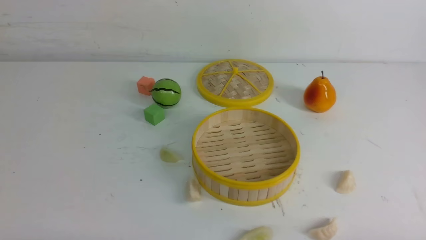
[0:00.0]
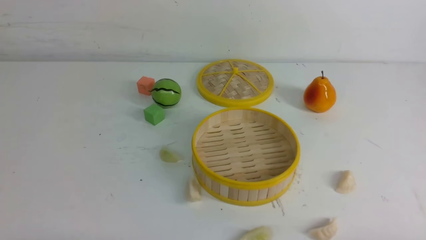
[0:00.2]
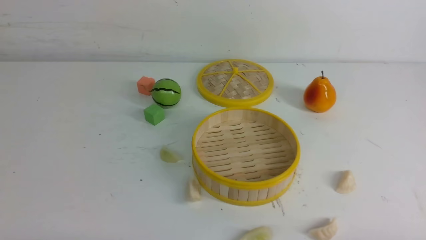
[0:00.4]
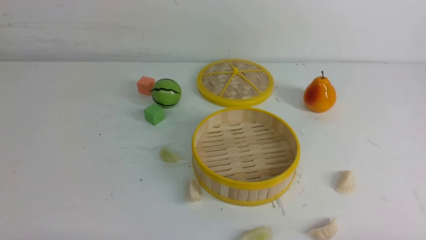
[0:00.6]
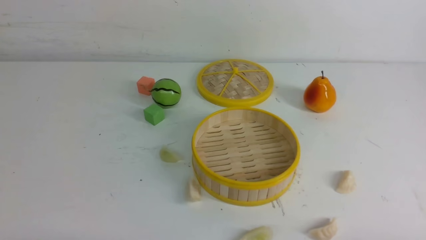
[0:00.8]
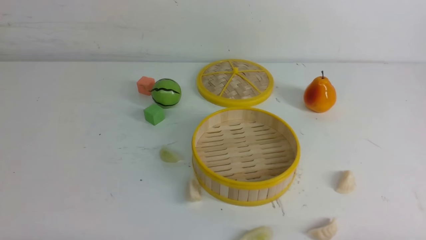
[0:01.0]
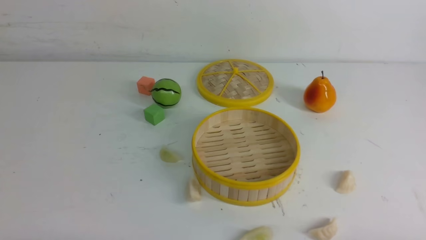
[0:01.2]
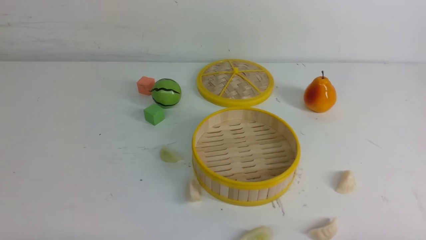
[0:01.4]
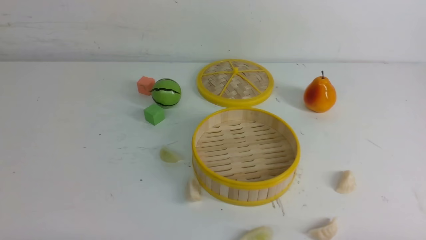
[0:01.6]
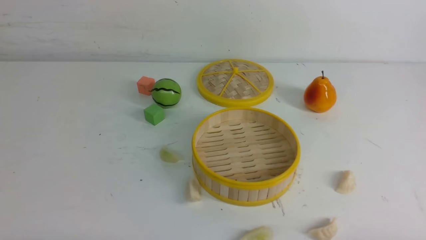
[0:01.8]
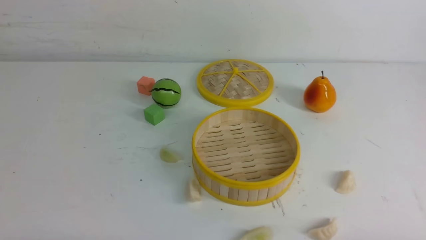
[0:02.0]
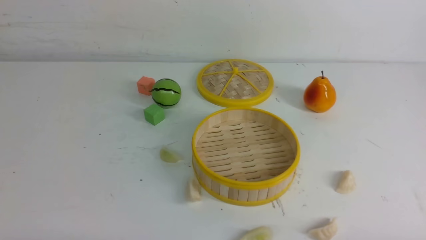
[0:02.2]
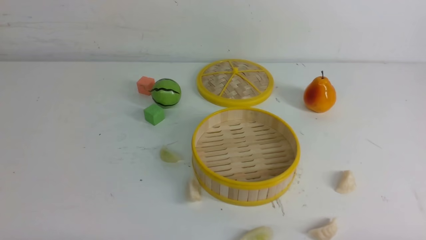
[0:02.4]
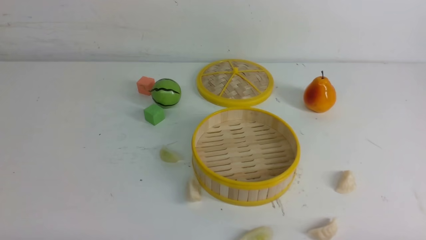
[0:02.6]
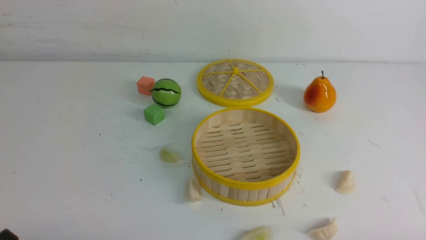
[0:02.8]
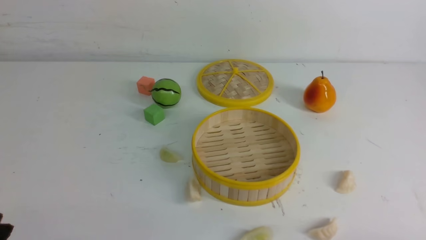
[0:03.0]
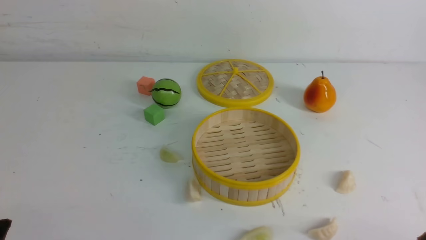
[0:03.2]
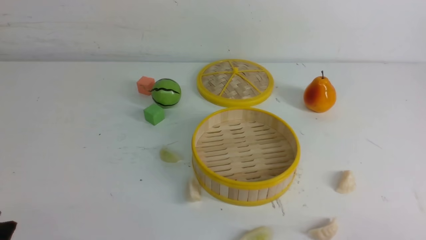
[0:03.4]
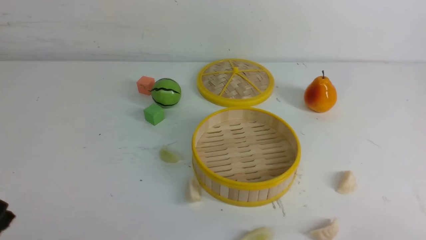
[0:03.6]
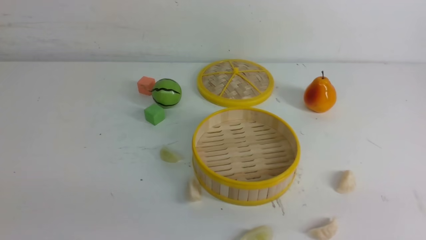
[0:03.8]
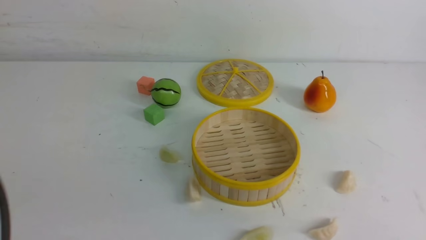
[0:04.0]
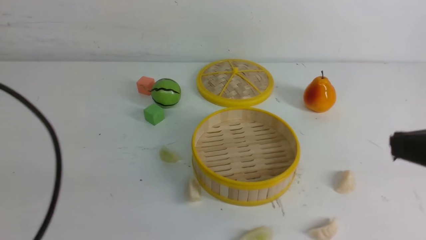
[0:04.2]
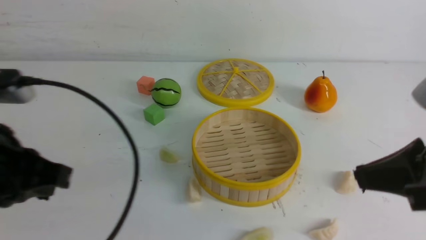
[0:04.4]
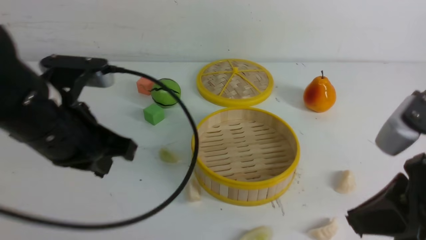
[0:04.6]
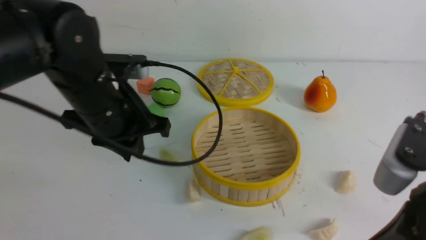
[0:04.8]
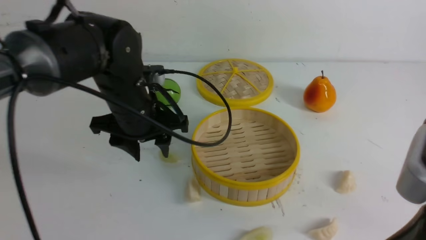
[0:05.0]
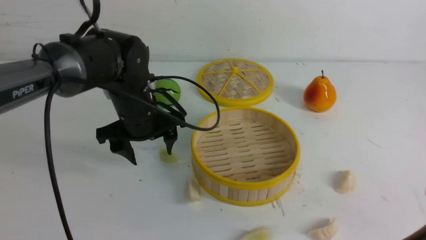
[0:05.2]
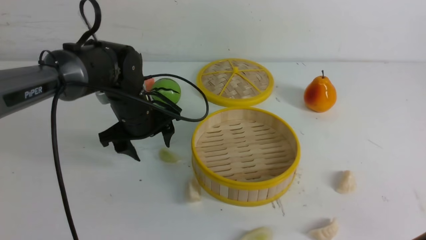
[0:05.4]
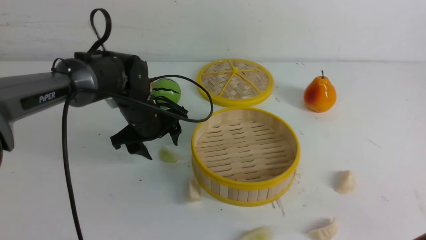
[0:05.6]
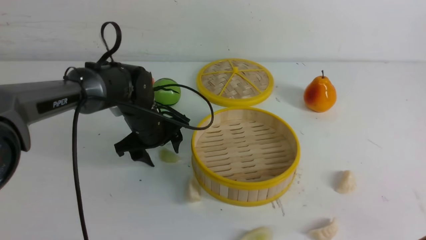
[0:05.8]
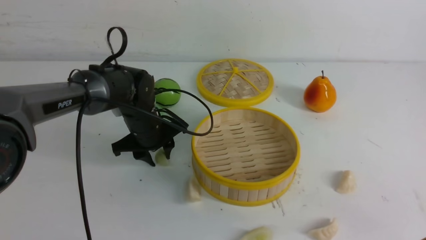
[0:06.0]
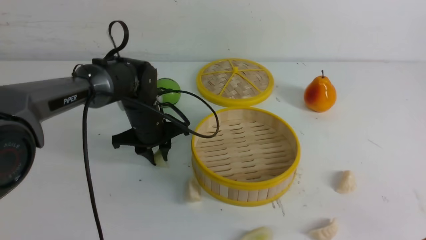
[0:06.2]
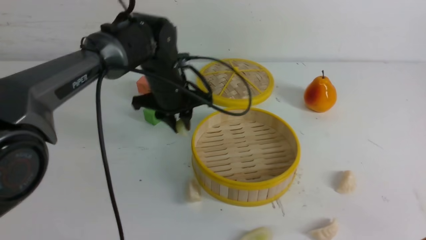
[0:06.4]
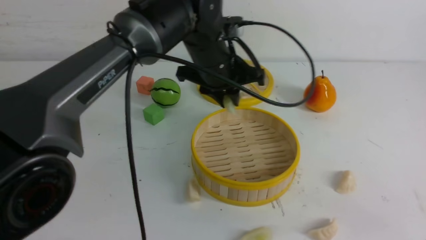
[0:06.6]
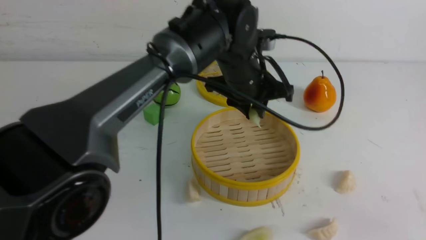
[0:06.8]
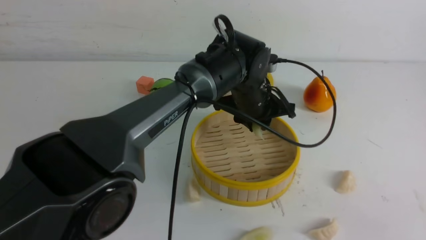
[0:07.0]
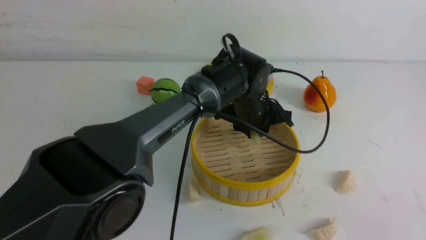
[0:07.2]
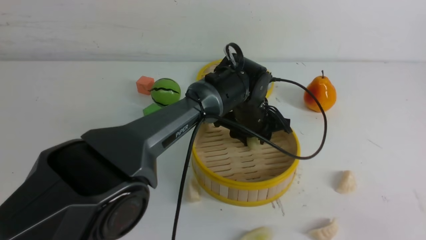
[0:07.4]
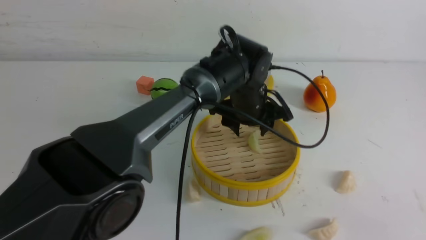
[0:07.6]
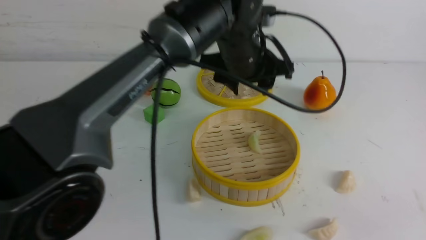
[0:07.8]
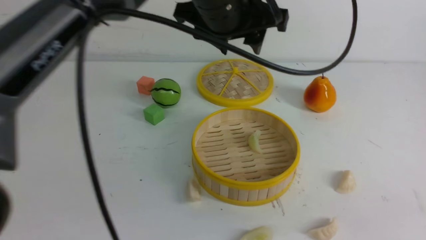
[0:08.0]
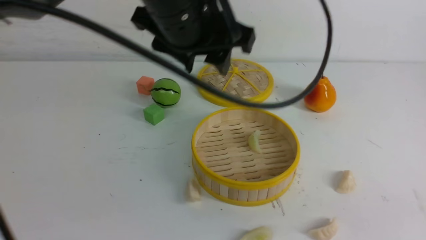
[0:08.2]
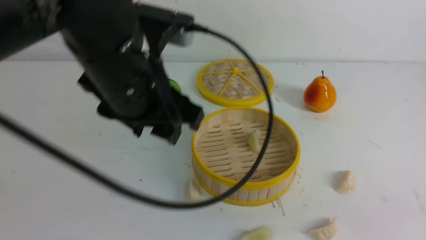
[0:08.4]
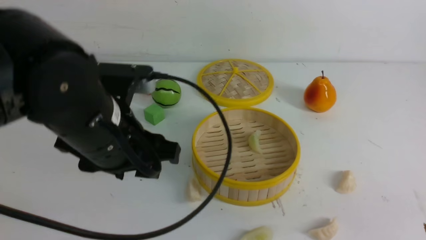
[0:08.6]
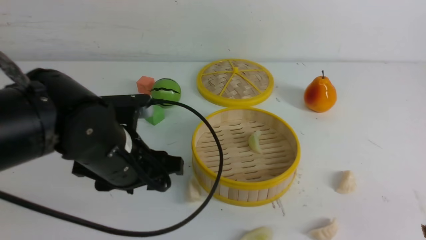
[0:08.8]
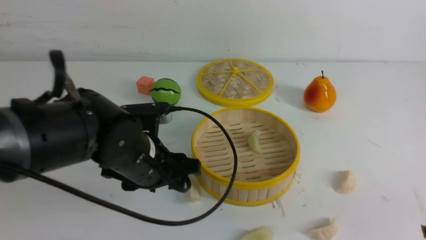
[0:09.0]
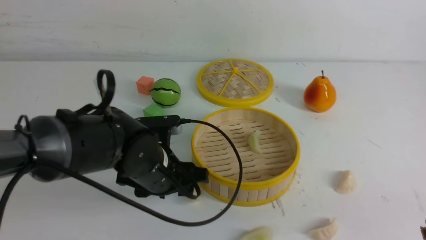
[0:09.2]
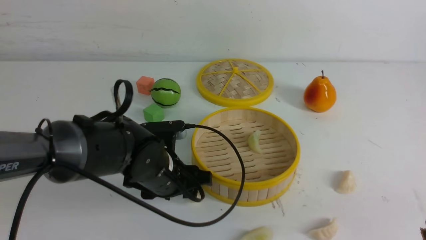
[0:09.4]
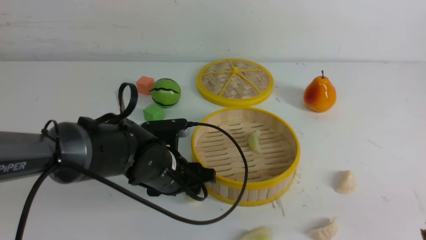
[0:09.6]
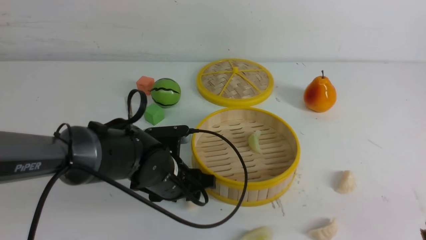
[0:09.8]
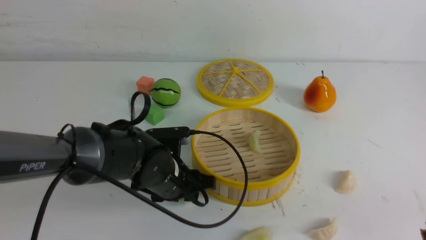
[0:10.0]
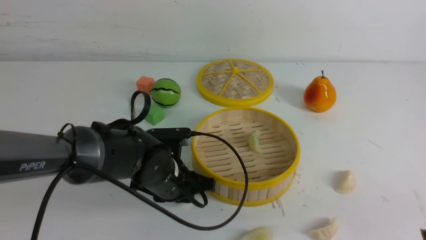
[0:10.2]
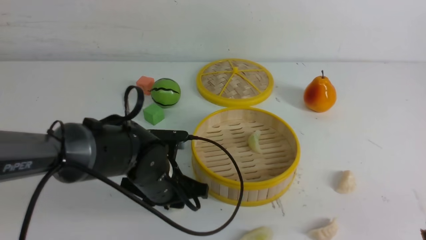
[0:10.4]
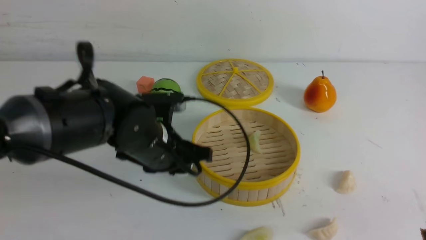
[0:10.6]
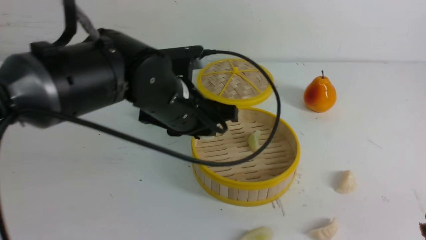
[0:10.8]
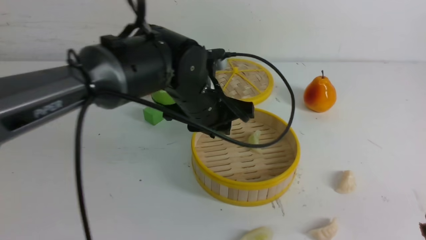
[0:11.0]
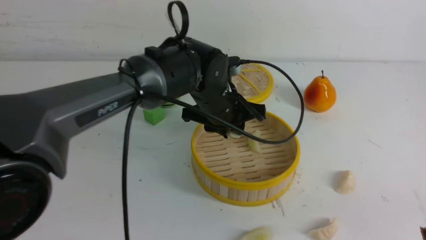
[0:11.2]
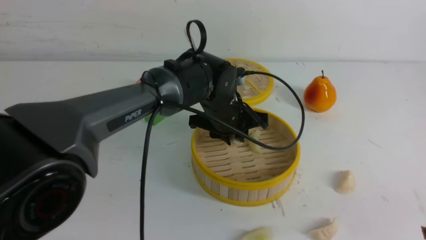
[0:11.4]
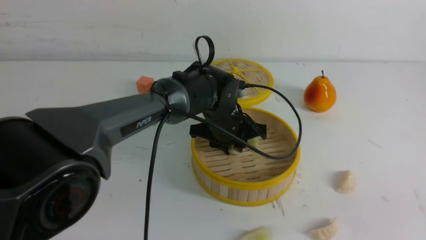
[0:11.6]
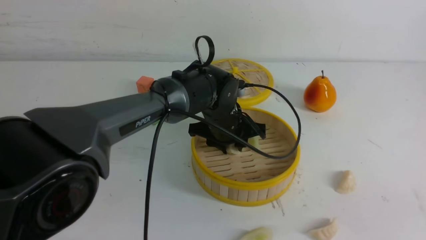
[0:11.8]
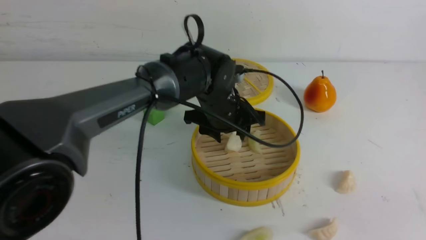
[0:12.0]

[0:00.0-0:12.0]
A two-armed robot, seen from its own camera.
Task of the whole recording: put the dumplings into the steamer on the white table.
Step, 0:00.0 to 0:06.2: use the left arm to grab a dumpling.
Step, 0:06.4 to 0:07.4: use the left arm to put the dumpling into the steamer.
Step, 0:07.6 to 0:10.4: use the left arm to grab a dumpling.
Step, 0:10.6 to 0:11.8: use the left arm to put the dumpling into the steamer.
0:00.0 to 0:01.6: Both grippers stay put.
0:03.0 to 0:04.4: Both grippers move upward and forward, roughly 20 cm. The right gripper closes its fingers. The left gripper closes its fingers.
0:04.4 to 0:06.0: The left gripper moves forward and downward, about 30 cm, and opens up. The right gripper moves backward, approximately 5 cm.
0:06.0 to 0:07.6: The left gripper travels to the right and upward by approximately 20 cm.
0:07.6 to 0:09.0: The left gripper shifts roughly 20 cm to the left and backward, and reaches approximately 15 cm upward, then returns.
0:09.0 to 0:10.4: The left gripper closes.
0:10.4 to 0:12.0: The left gripper is displaced forward, to the right and upward by some 15 cm.

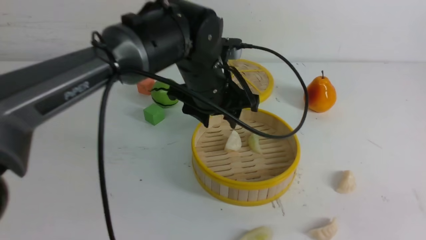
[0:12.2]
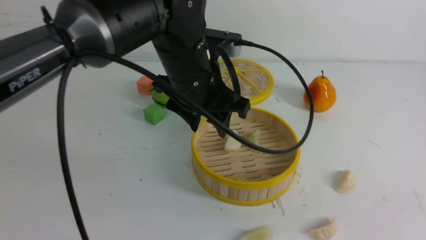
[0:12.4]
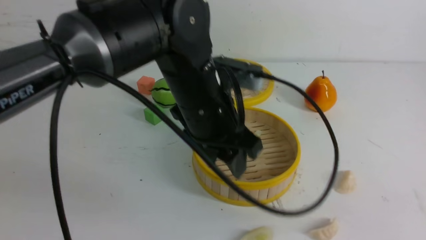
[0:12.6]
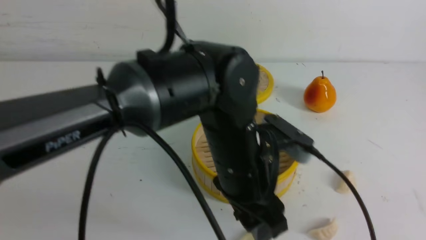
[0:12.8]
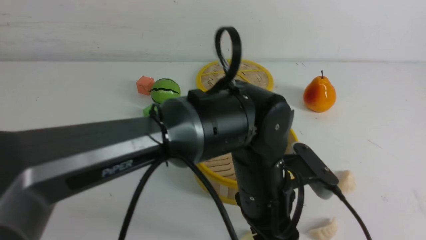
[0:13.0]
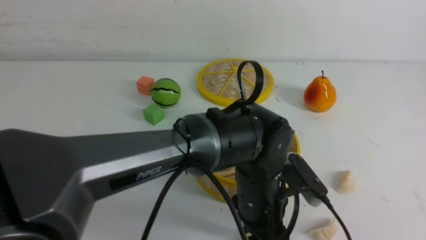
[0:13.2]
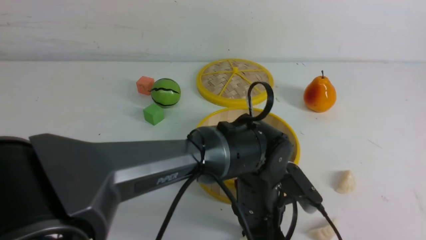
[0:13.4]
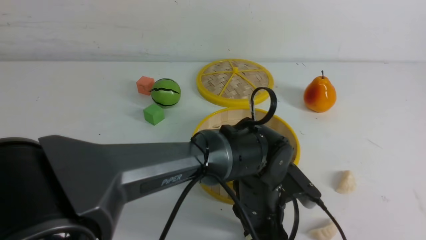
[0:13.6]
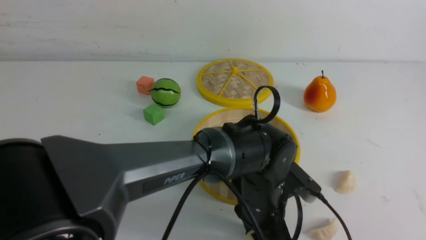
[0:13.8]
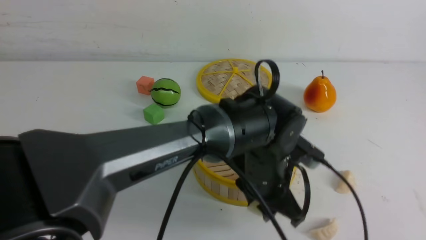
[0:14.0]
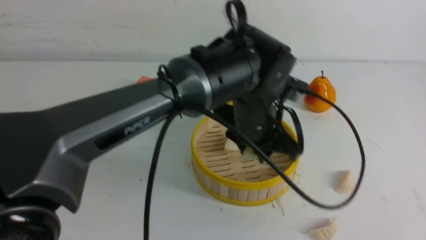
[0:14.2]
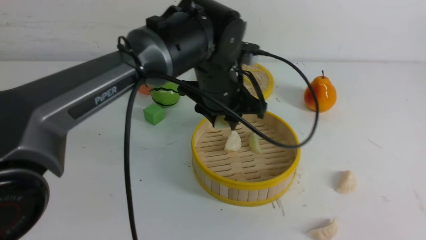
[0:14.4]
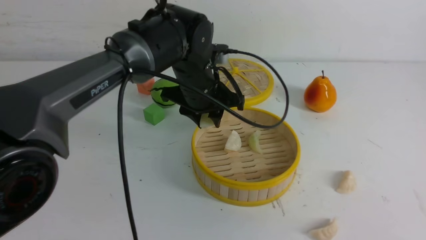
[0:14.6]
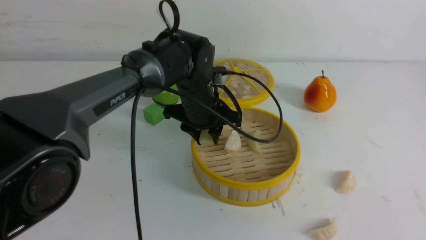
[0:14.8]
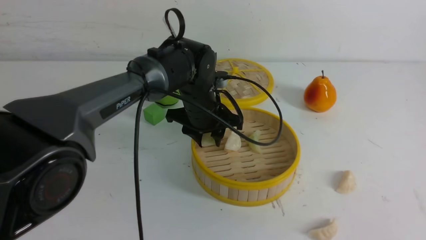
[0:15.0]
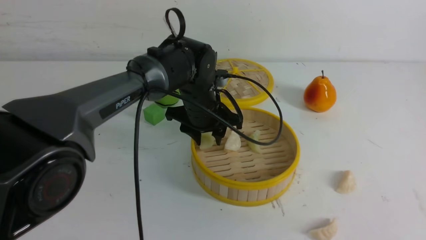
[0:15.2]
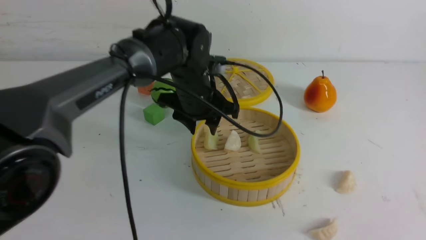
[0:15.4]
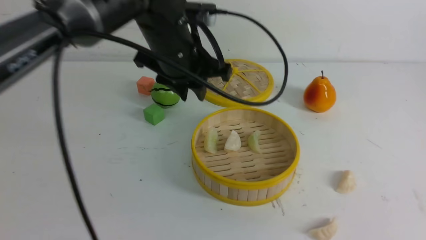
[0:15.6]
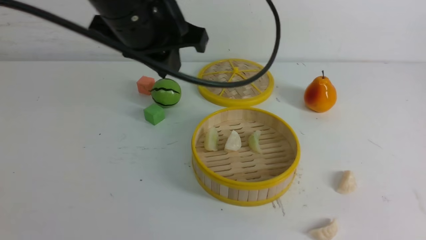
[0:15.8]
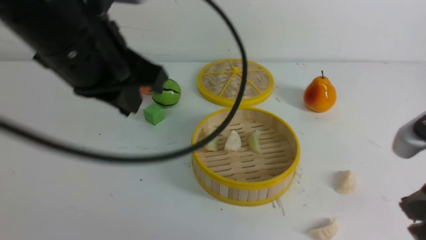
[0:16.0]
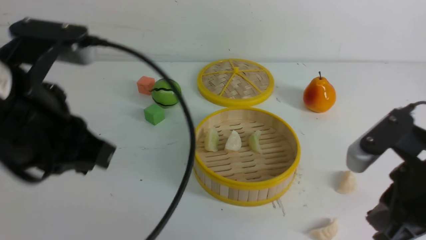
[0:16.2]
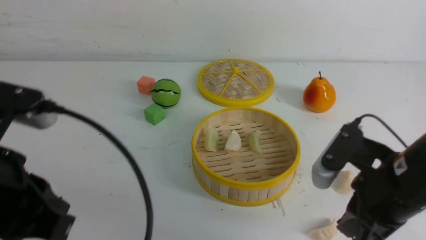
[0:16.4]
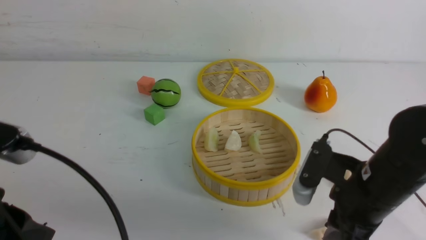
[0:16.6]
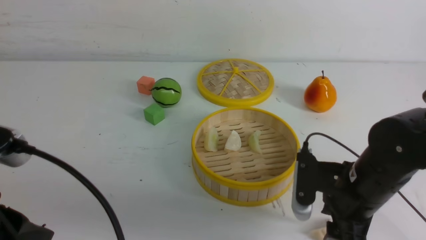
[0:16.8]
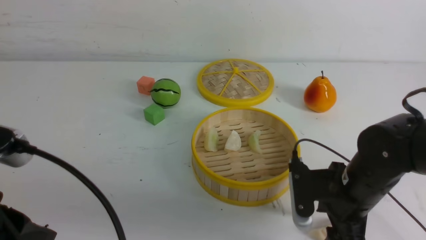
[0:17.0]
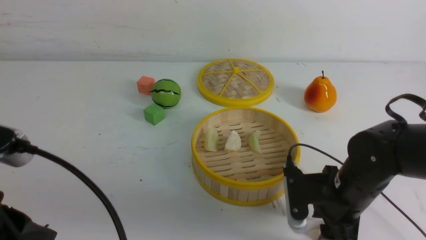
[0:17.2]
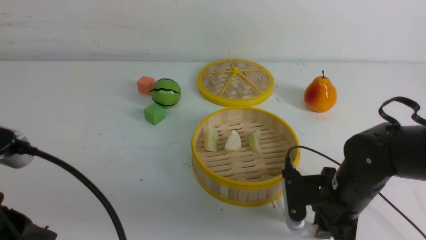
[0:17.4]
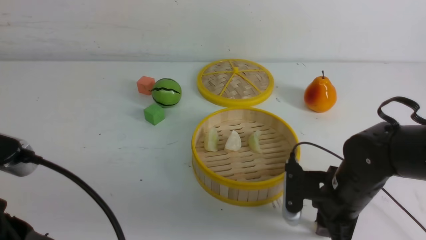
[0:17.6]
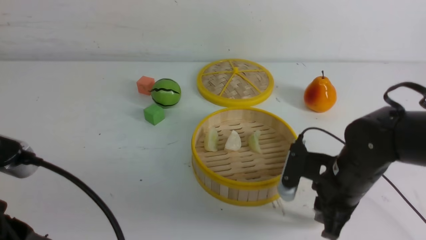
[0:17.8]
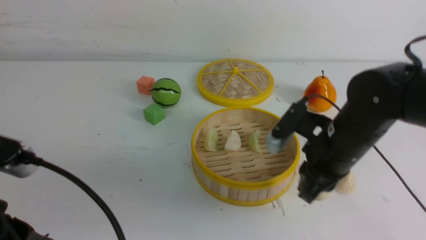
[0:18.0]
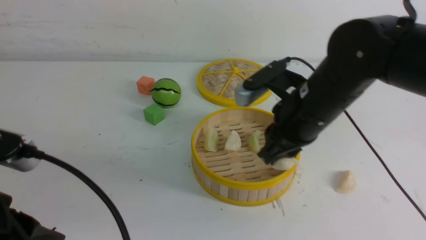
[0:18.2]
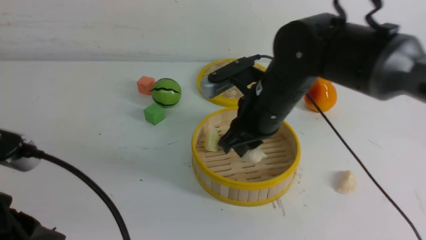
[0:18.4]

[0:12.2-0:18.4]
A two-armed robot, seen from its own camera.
Task of the whole recording: put the dumplings into the steamer on the white table.
Step, 0:12.2 to 0:13.4: use the left arm to grab a dumpling.
Step, 0:13.6 to 0:15.2: use the left arm to put the dumpling into the steamer.
Step, 0:15.4 to 0:17.6: use the right arm to grab a dumpling.
0:12.2 to 0:13.8: The left gripper goes approximately 15 cm downward, to the right and backward; the right gripper shifts by roughly 5 cm.
0:13.8 to 0:15.4: The left gripper travels forward, to the left and upward by some 20 cm.
0:15.4 to 0:16.8: The left gripper moves backward and to the left, roughly 35 cm, and closes up, while the right gripper is displaced forward, downward and to the left by about 30 cm, and opens its fingers.
0:16.8 to 0:18.4: The right gripper shifts some 15 cm to the left, forward and upward, and closes up.
